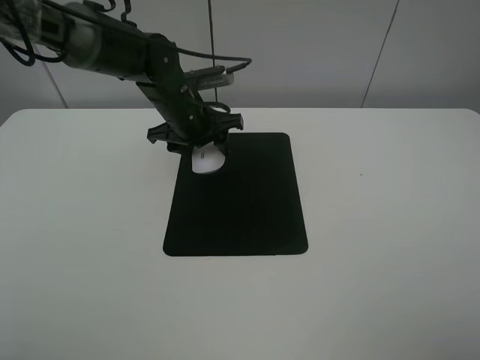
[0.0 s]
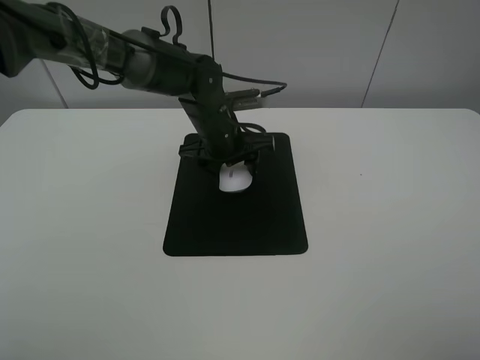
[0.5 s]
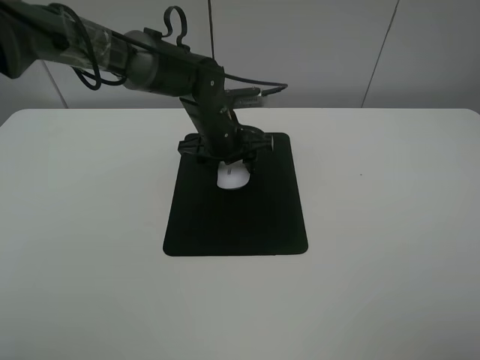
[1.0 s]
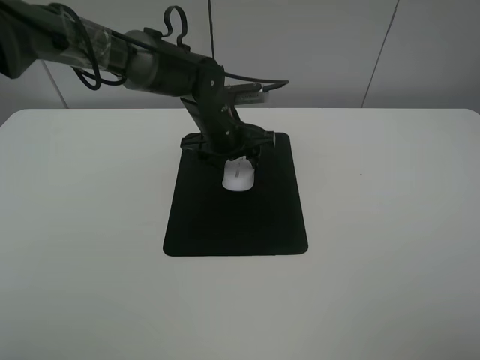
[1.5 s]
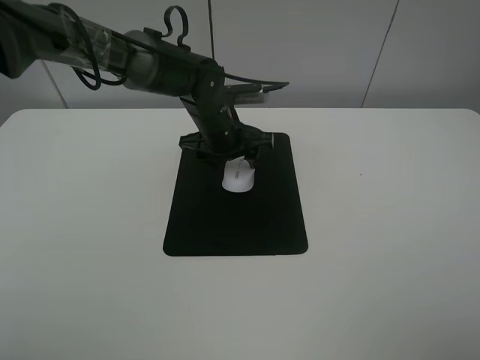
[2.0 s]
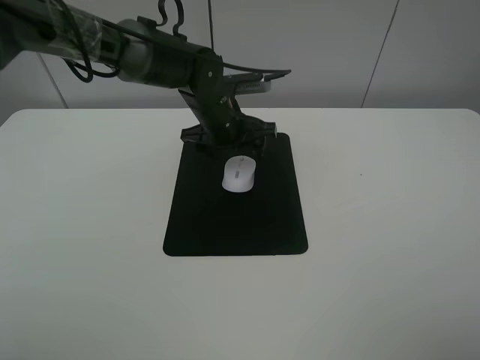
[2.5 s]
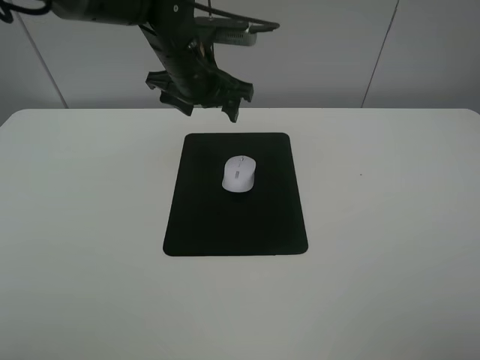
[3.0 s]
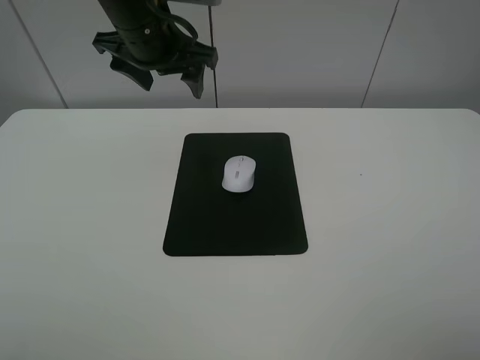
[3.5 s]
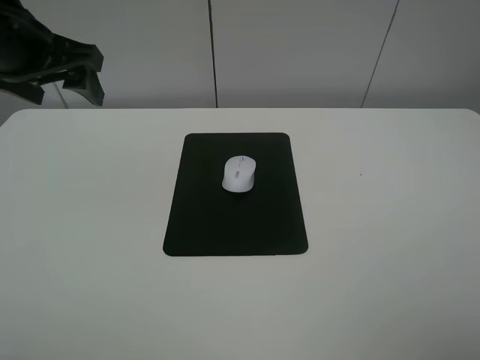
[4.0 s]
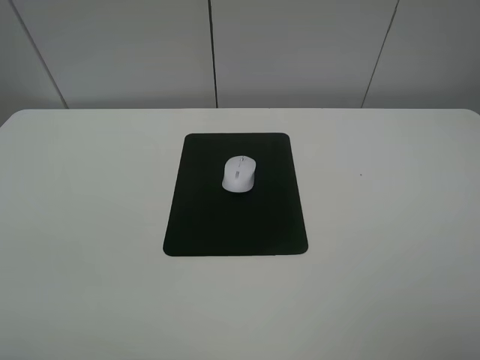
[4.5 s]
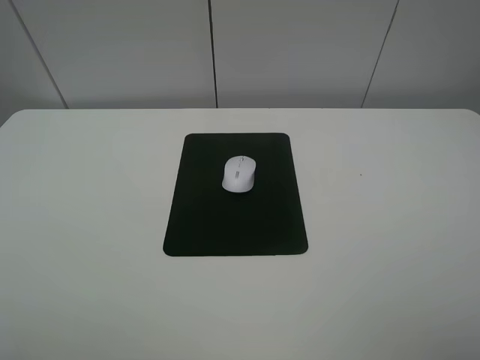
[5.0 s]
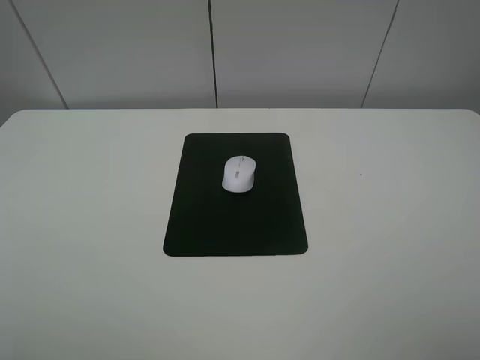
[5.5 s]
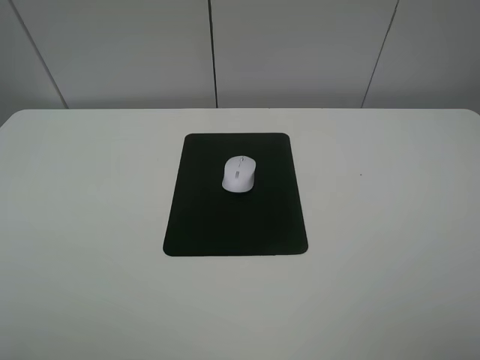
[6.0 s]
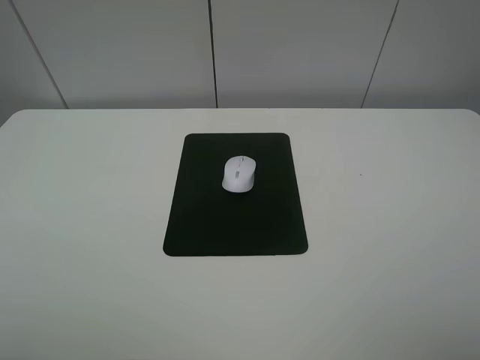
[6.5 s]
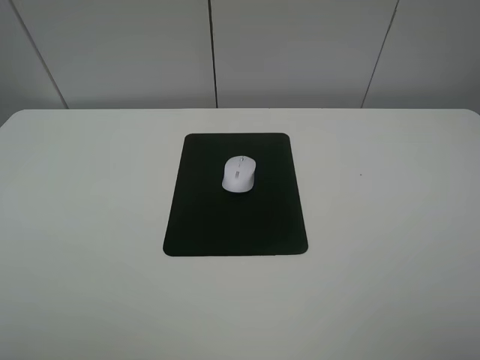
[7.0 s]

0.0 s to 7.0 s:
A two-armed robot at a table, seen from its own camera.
Step, 0.0 to 2.0 s: Place the mouse on the mouse mat with the left gripper.
0.0 to 2.0 s: The left gripper changes place by about 5 cm.
2.0 to 3.5 s: The left gripper is displaced upward and to the left by approximately 20 cm, and opens up.
3.5 to 5.0 s: The left gripper goes about 40 cm backward and to the left.
